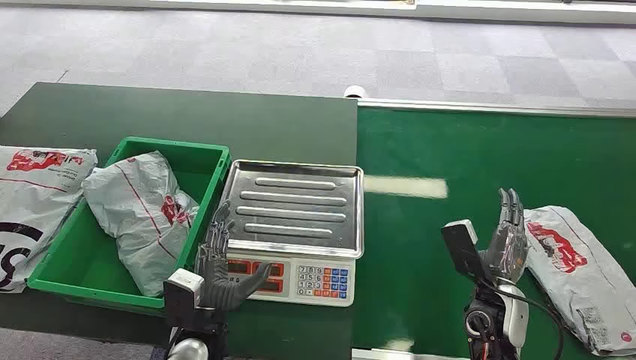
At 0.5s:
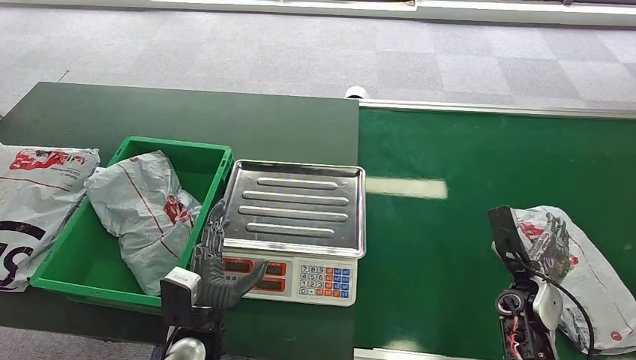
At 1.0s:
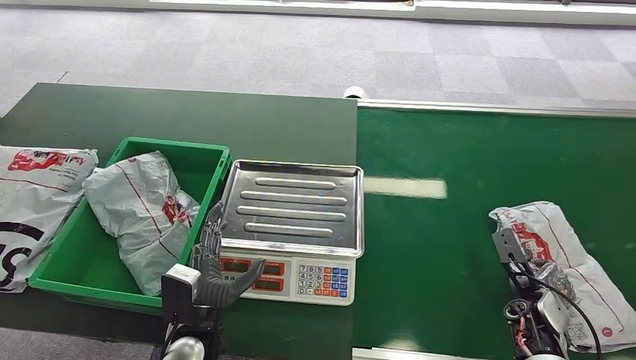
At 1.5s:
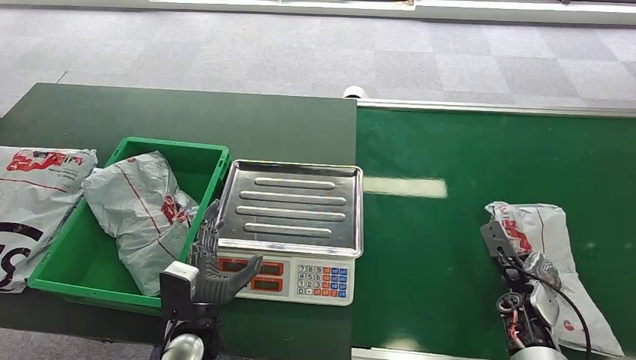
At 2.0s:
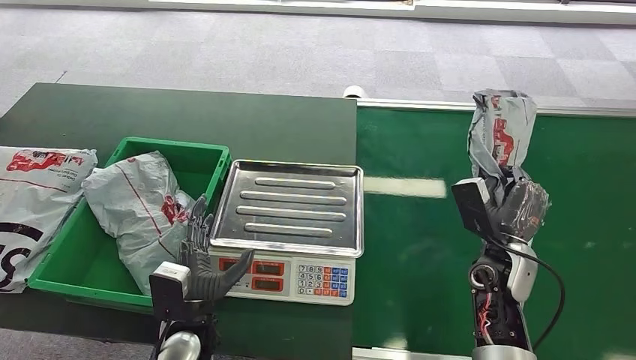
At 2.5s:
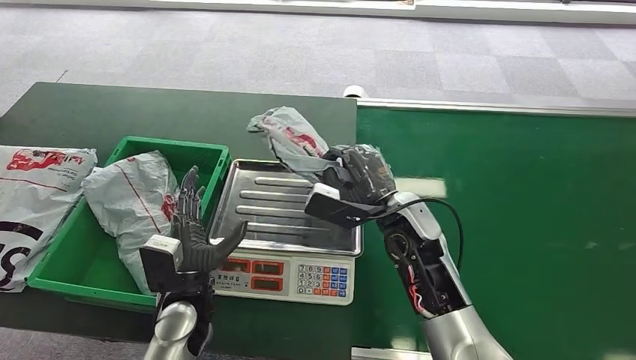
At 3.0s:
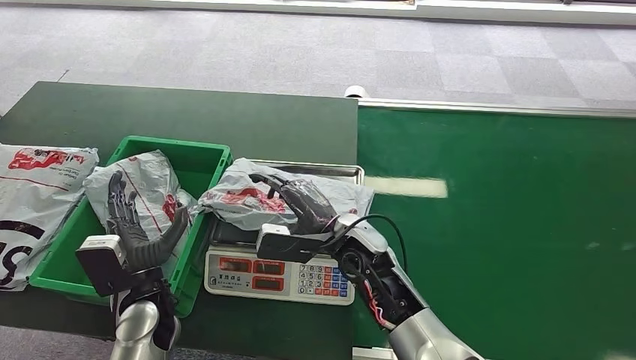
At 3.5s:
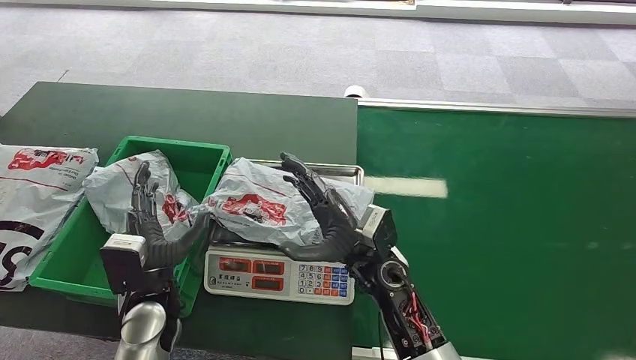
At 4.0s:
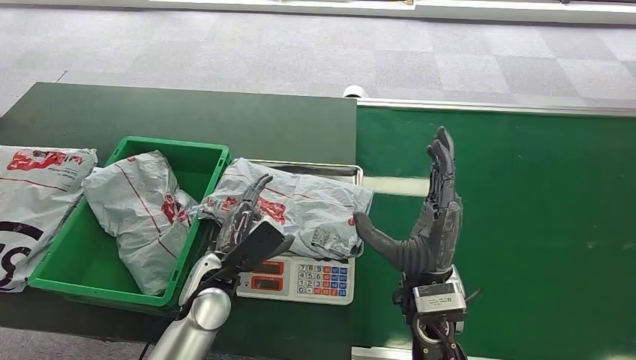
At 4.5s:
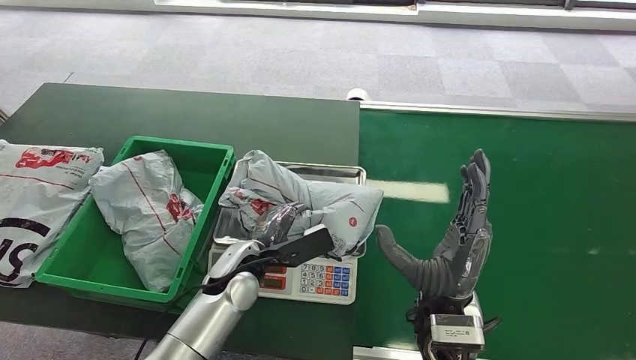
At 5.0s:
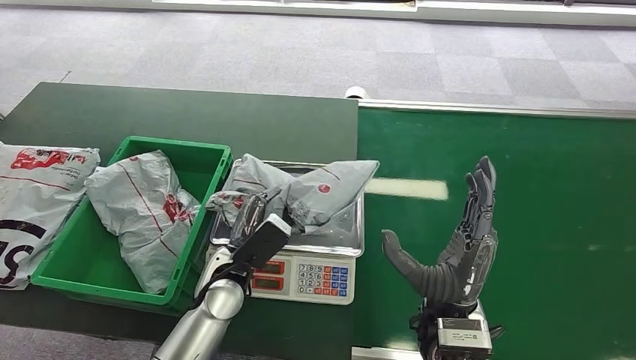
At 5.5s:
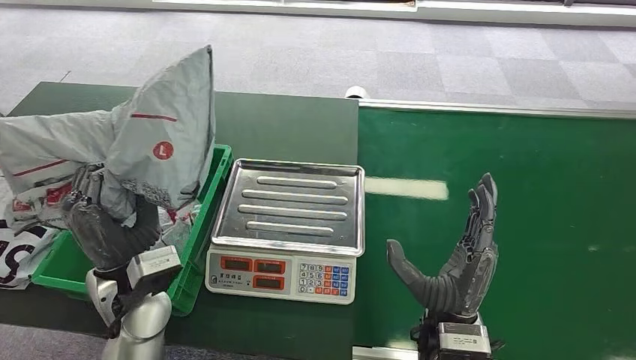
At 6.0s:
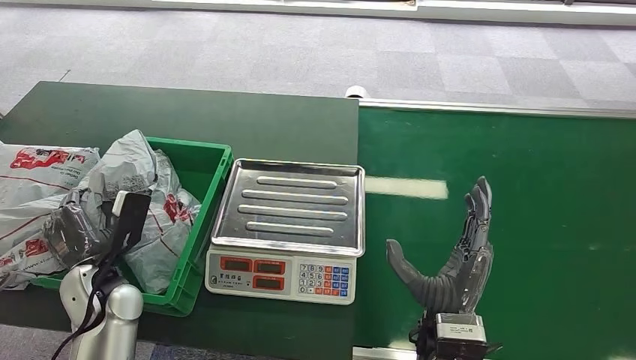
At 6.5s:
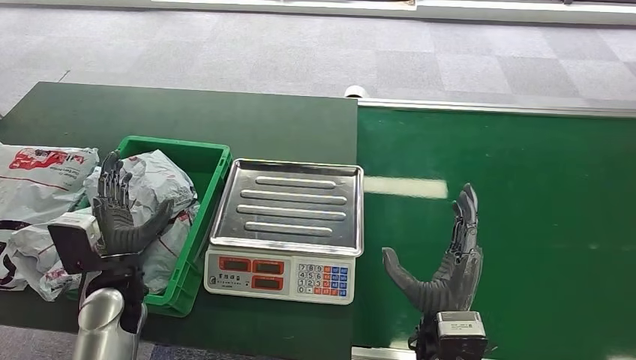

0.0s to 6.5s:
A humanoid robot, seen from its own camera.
Step, 0.0s to 1.5s: Pick up the package from the conveyor belt.
Step, 3.0s to 3.5s: Place the package onto the inbound machine.
Step, 4.5s to 5.0s: Pick up the package from the inbound machine.
Step, 6.0s to 6.5s: Place the package into the parcel locker.
